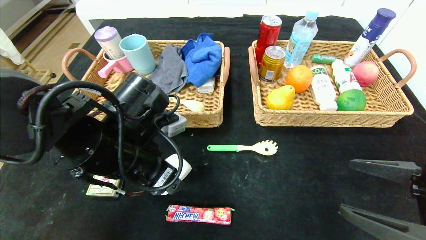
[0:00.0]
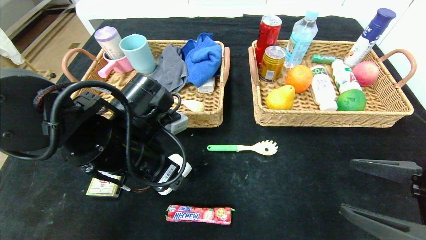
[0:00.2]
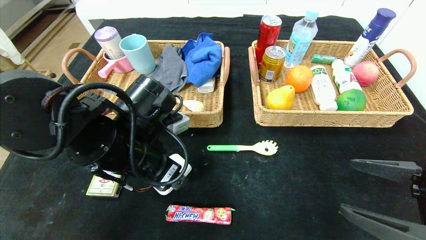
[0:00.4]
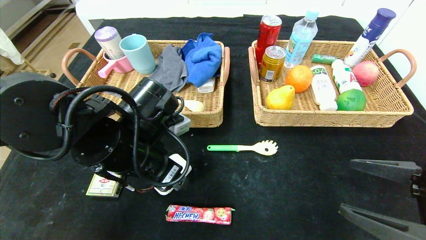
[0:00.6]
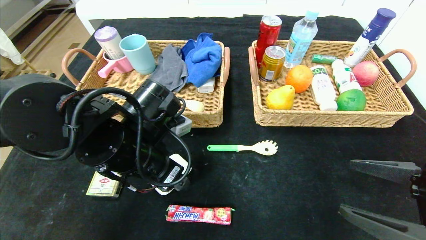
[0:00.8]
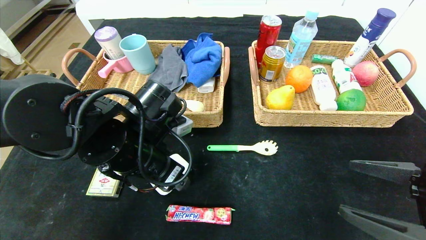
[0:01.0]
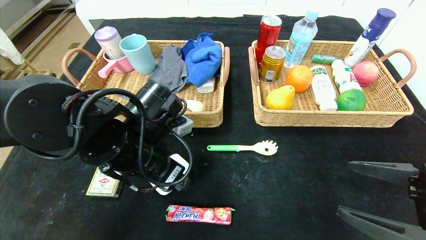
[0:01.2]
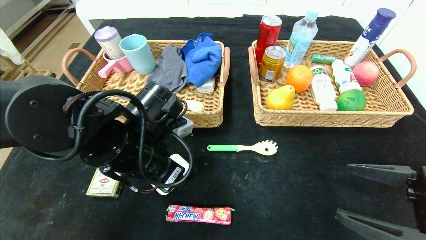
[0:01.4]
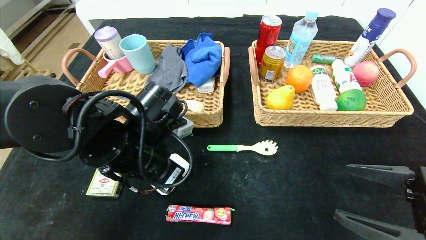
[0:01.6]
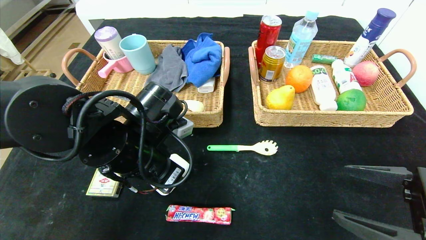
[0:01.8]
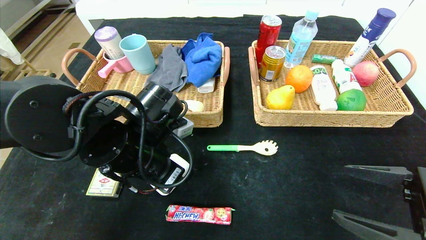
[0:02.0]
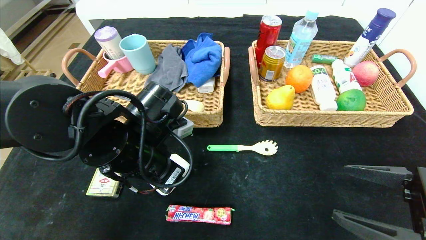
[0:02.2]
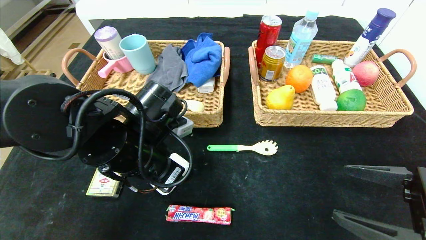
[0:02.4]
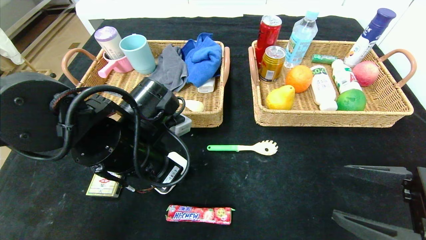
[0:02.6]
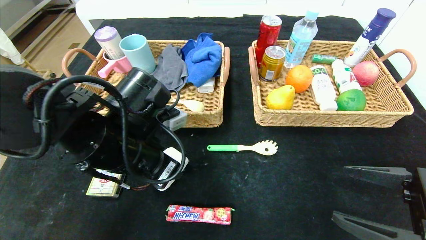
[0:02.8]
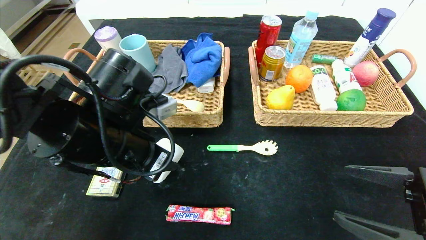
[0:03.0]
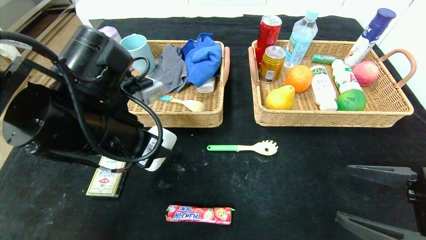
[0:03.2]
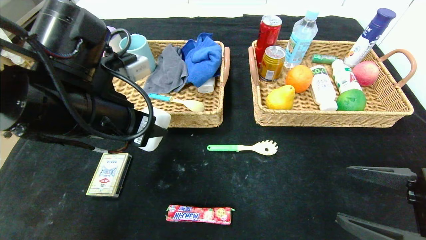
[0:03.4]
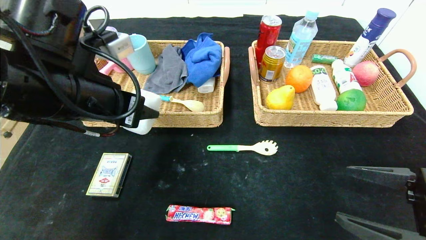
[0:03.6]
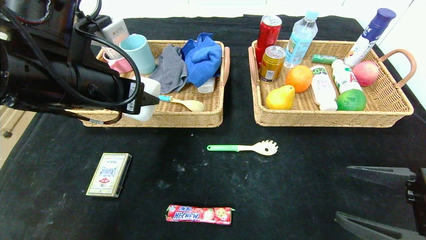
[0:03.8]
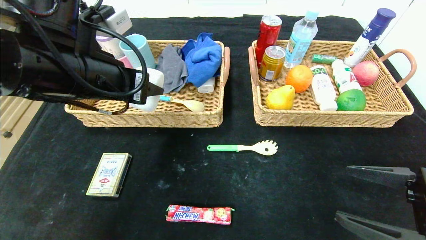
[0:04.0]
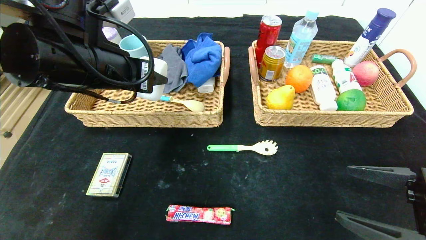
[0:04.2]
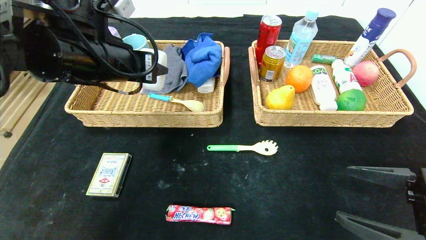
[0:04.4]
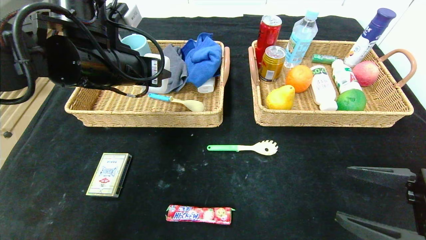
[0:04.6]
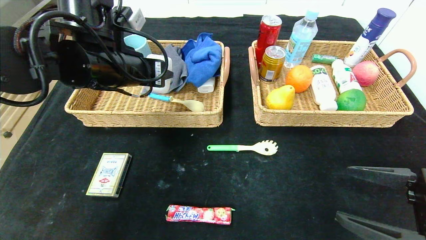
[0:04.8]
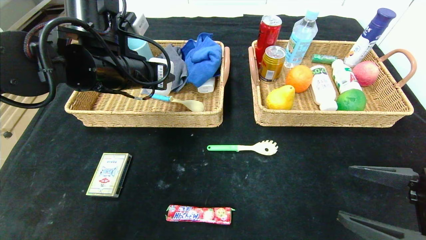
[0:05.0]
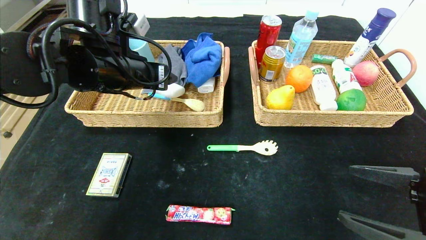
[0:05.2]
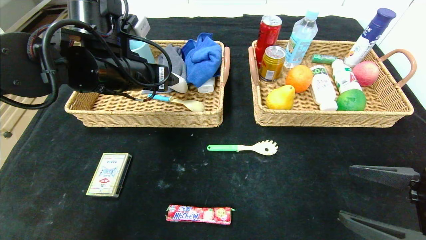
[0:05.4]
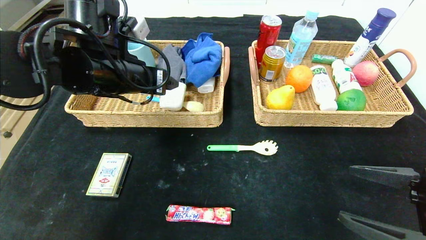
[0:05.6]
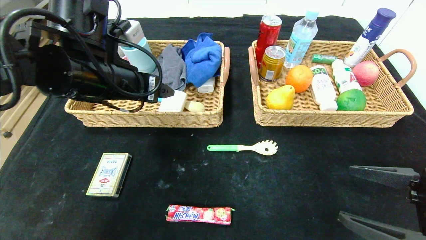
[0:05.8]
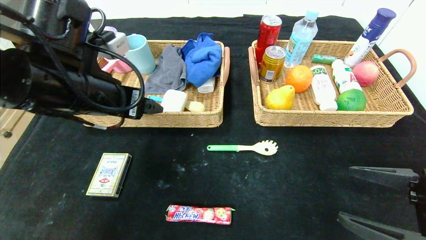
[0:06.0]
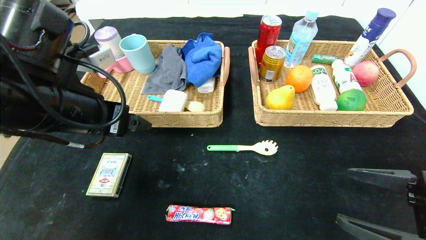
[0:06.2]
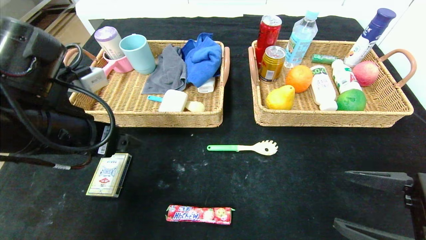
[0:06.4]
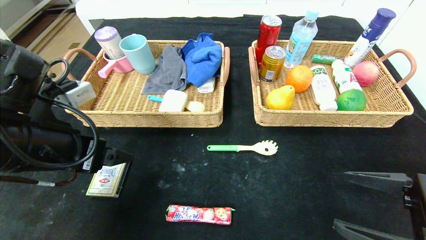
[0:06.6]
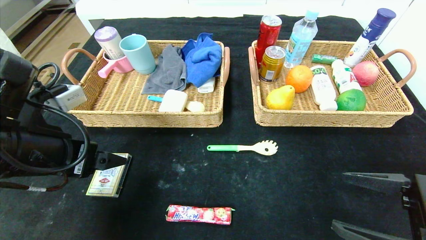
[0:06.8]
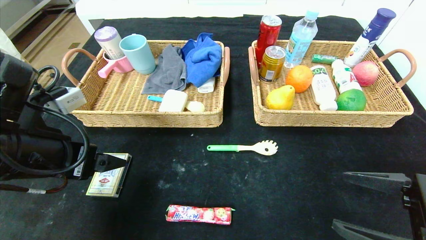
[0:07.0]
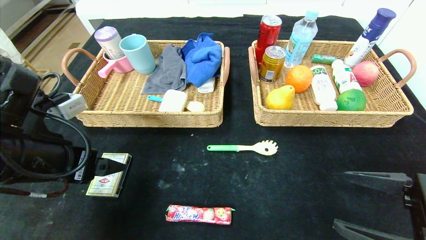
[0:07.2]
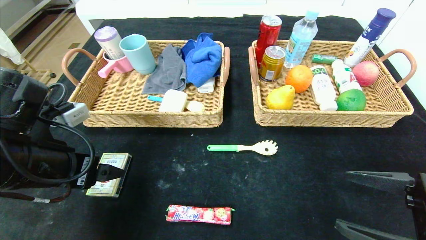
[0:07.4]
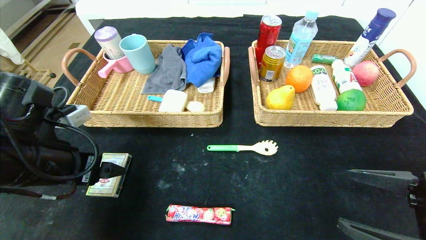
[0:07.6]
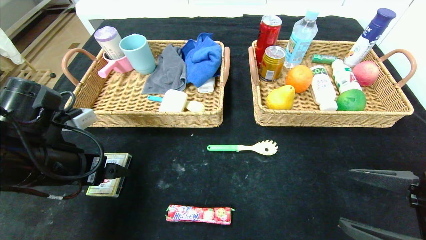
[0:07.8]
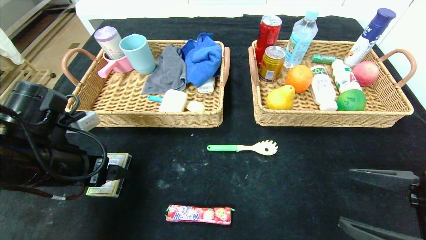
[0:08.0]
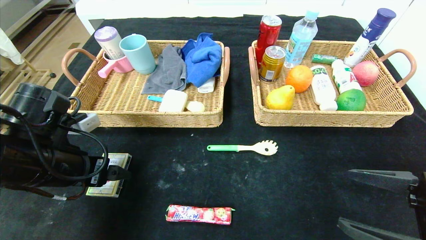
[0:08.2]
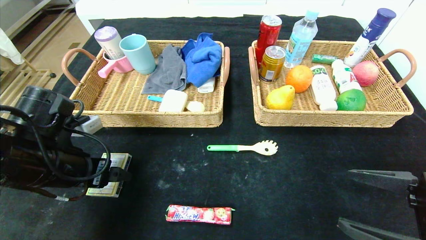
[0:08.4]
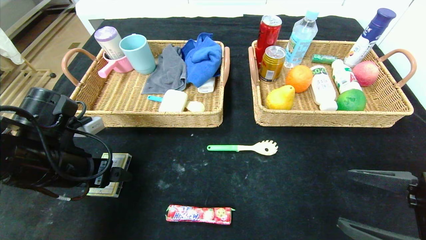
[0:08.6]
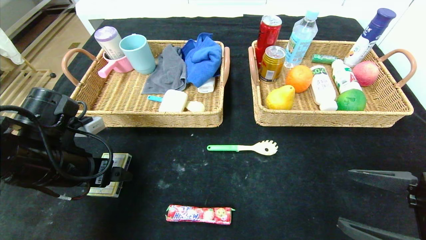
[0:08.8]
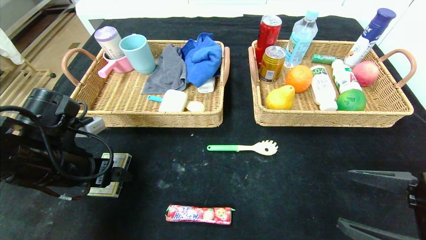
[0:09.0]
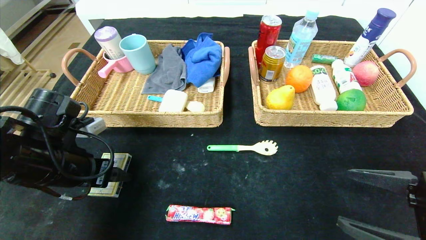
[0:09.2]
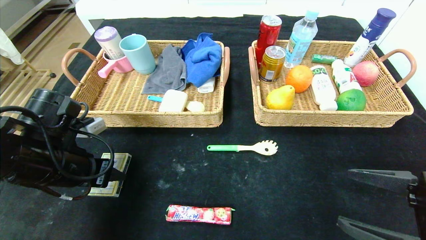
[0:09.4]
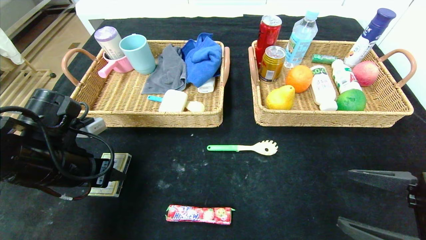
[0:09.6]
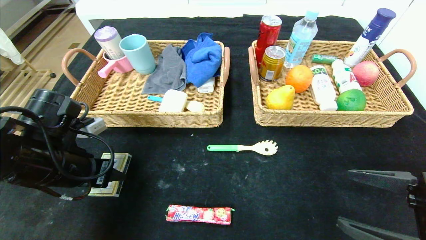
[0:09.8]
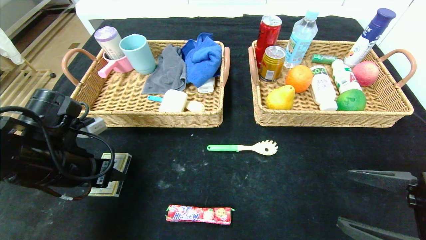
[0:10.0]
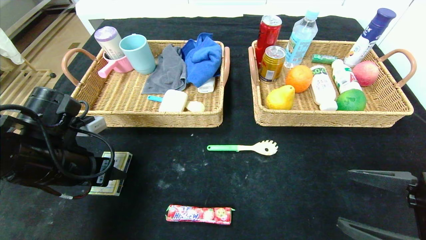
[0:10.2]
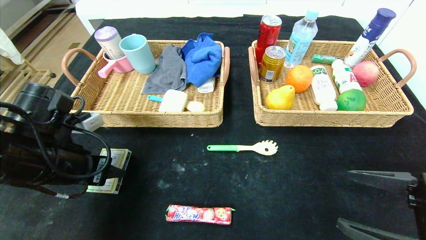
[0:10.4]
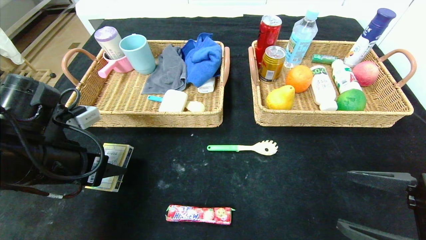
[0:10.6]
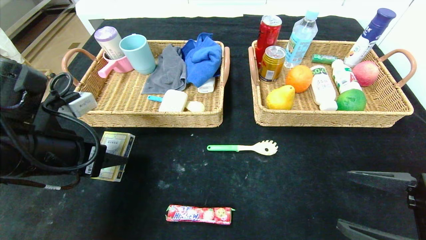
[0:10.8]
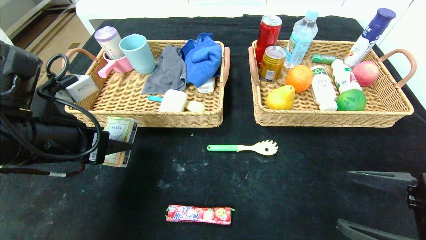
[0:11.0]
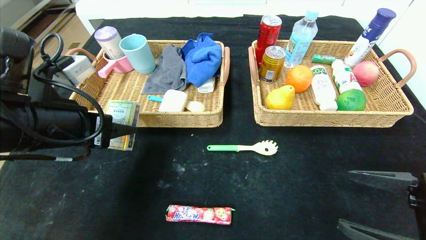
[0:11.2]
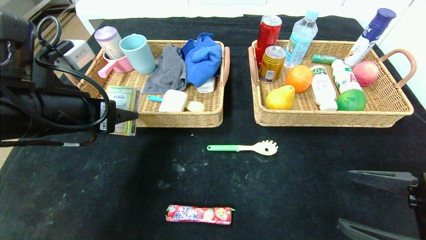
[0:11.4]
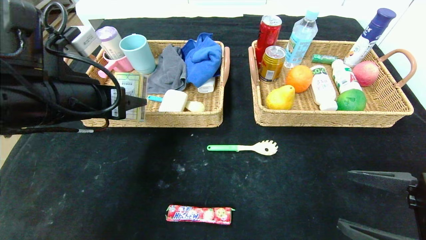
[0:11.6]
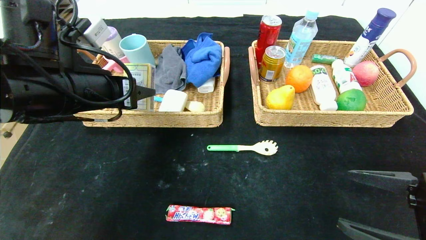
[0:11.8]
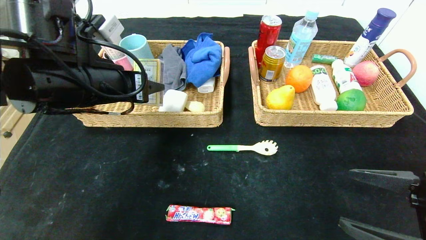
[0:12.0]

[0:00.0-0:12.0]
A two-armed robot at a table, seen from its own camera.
Step, 0:00.0 to 0:05.0: Grasp the white eraser and put it in the left basket.
0:00.0 to 0:01.6: The left gripper closes up.
0:01.6 to 0:03.0: The grippers make only small movements.
0:03.0 to 0:04.4: The left gripper travels upward and forward by roughly 10 cm.
0:04.4 to 0:06.0: The left gripper changes place by some 5 cm, and opens its fingers.
0:06.0 to 0:07.6: The left gripper shifts about 10 cm downward and to the left.
0:07.6 to 0:09.0: The grippers stay close to where they were, moving slightly.
0:09.0 to 0:10.4: The left gripper closes.
0:10.4 to 0:12.0: The left gripper shifts about 10 cm upward and to the right.

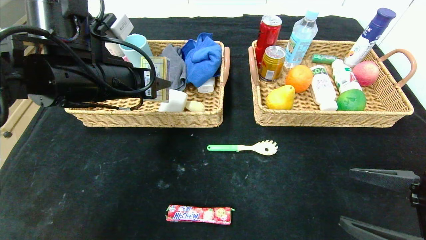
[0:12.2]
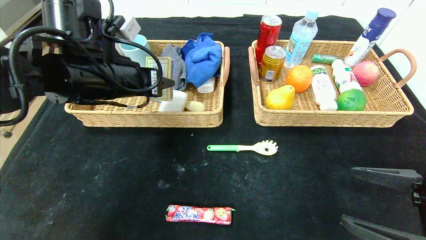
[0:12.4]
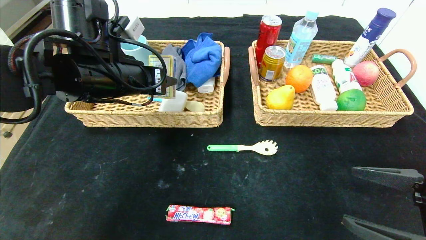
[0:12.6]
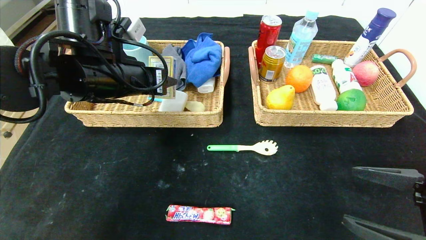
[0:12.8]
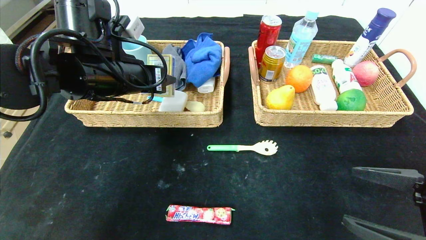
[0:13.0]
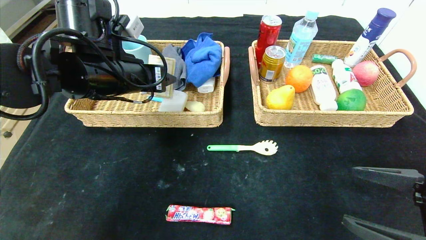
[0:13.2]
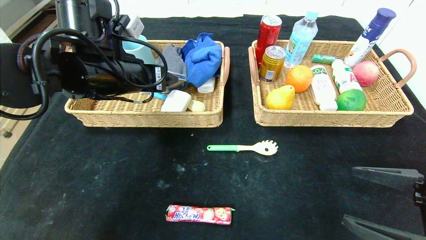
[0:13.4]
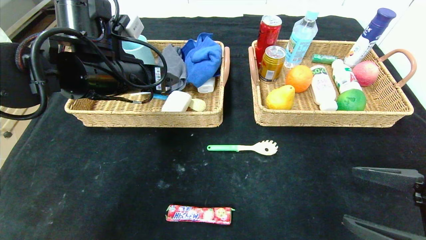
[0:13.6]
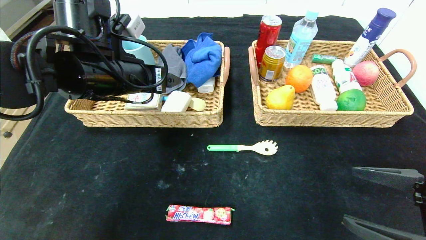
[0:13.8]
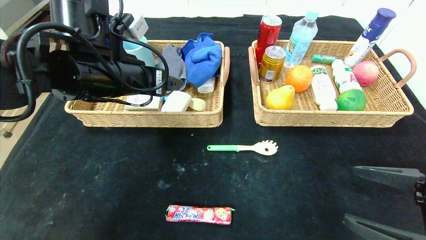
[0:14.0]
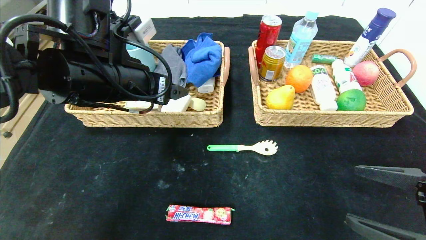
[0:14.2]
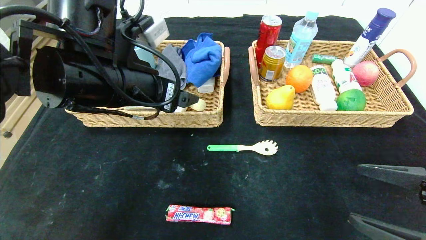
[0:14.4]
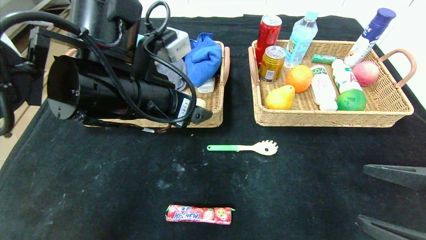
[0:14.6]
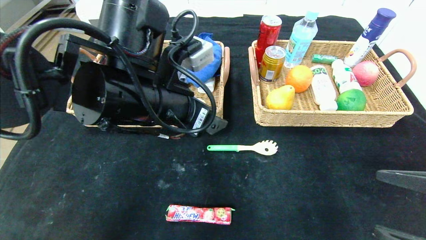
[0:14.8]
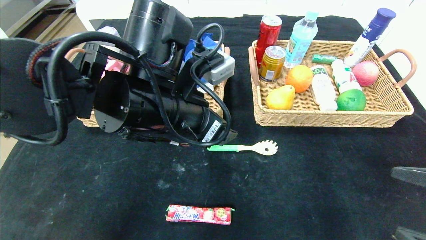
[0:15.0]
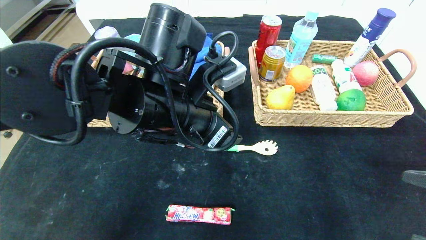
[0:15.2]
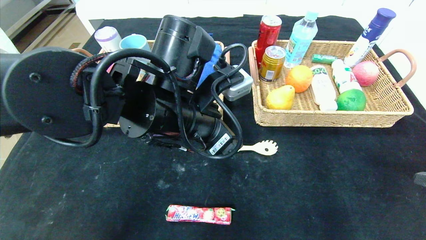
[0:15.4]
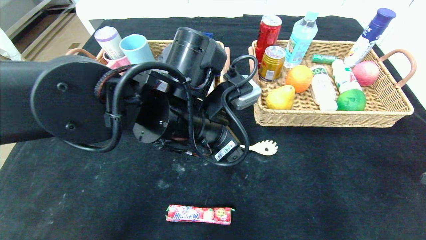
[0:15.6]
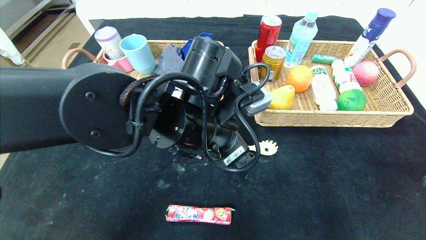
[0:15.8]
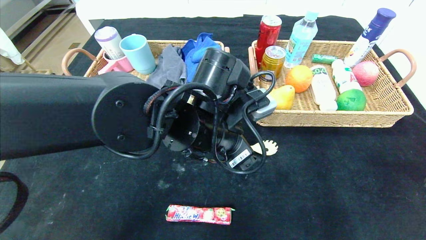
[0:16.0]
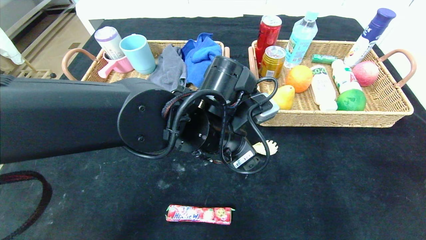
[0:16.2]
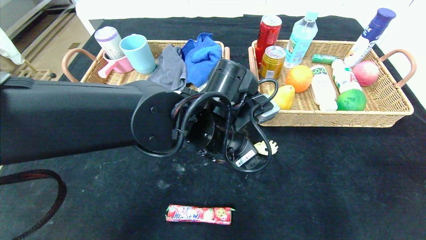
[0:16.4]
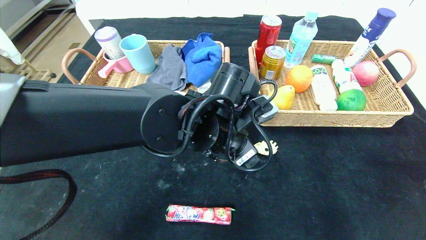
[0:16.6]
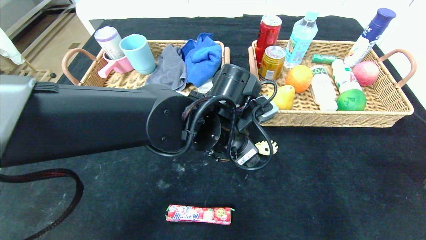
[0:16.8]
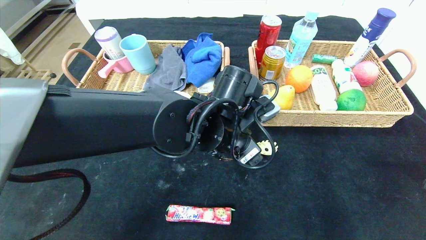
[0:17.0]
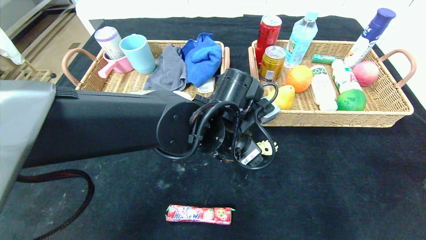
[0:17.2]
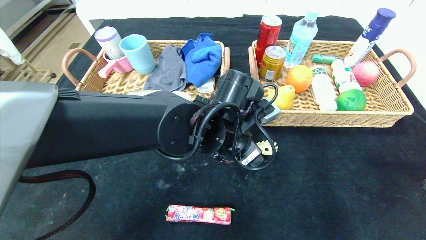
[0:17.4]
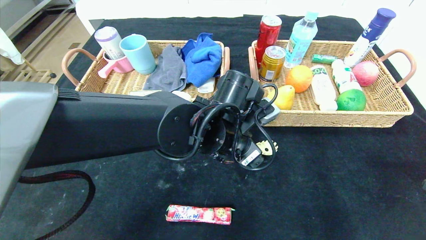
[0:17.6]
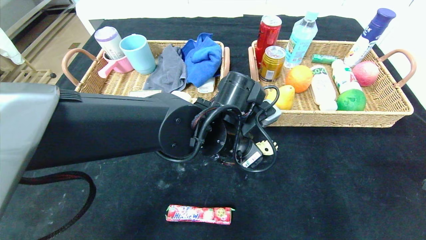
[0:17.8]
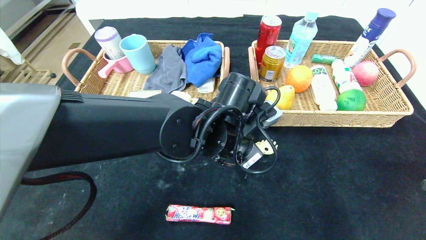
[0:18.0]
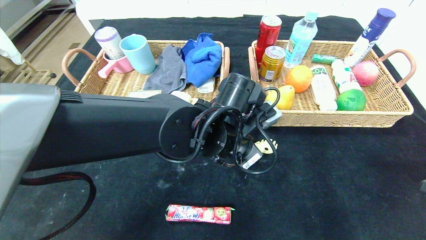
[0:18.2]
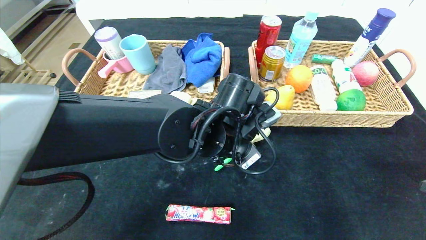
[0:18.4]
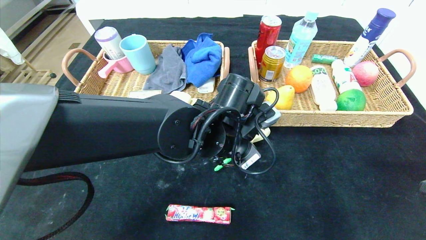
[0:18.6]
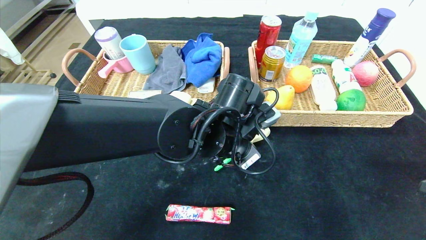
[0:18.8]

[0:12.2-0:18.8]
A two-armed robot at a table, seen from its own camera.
0:12.2 to 0:13.8: The left gripper opens.
0:13.8 to 0:15.4: The right gripper shifts by roughly 5 cm, while the left gripper moves to the right and backward, some 15 cm.
0:15.4 to 0:17.2: The left gripper travels to the right and downward by approximately 10 cm.
0:17.2 to 0:18.8: The left gripper closes.
